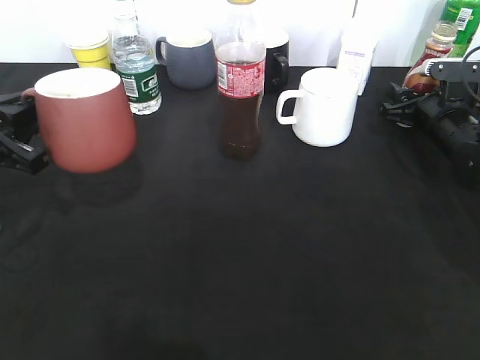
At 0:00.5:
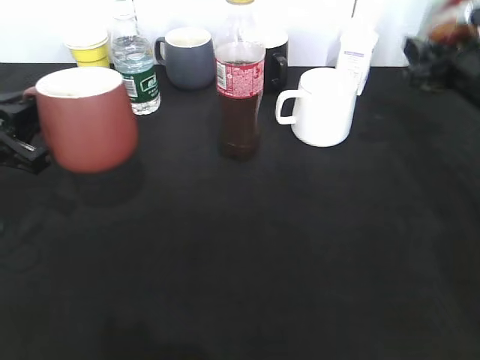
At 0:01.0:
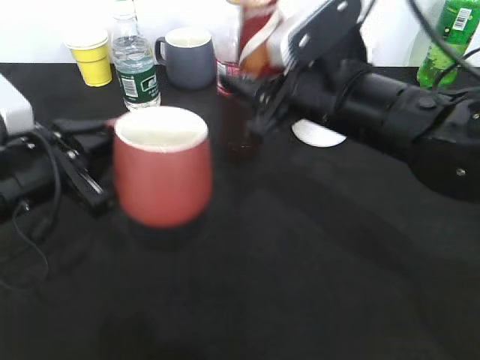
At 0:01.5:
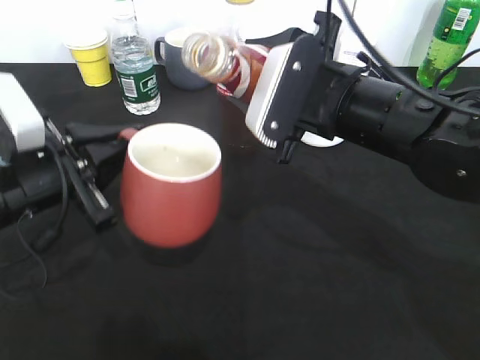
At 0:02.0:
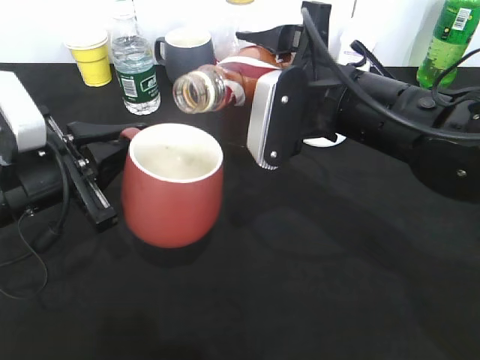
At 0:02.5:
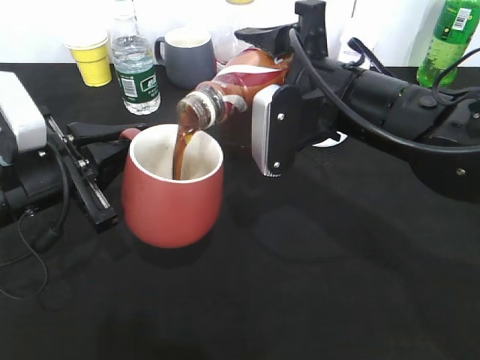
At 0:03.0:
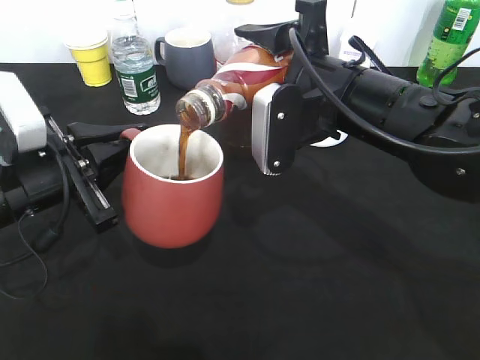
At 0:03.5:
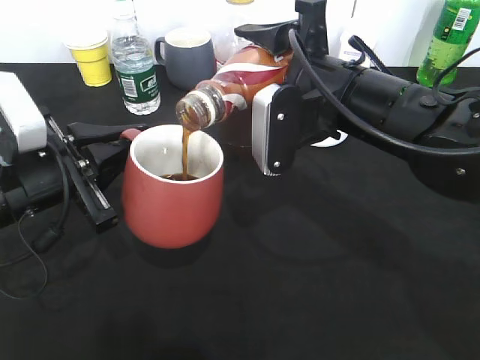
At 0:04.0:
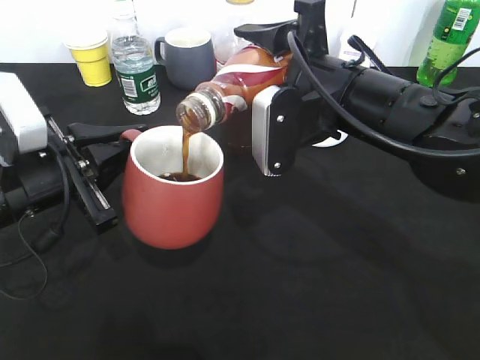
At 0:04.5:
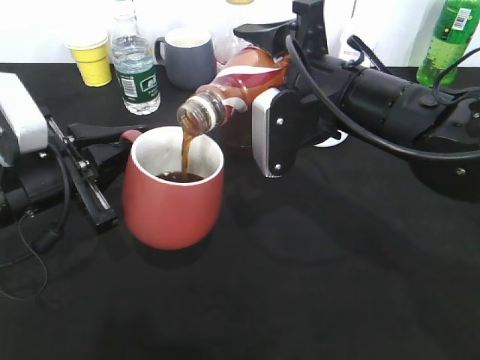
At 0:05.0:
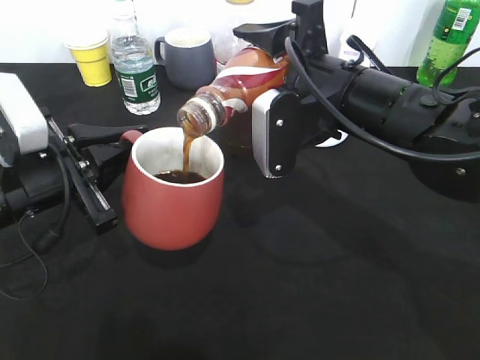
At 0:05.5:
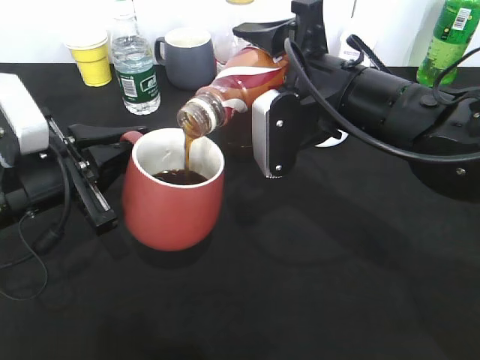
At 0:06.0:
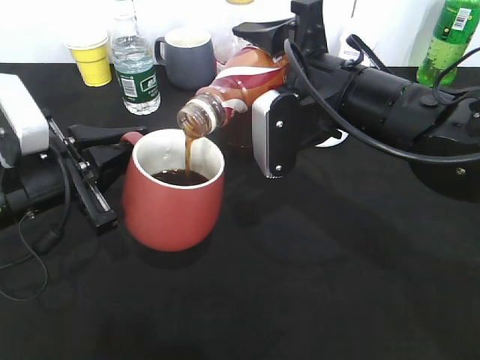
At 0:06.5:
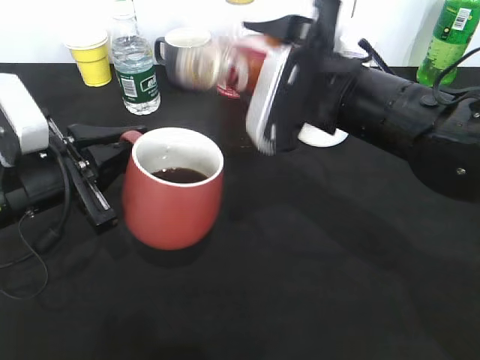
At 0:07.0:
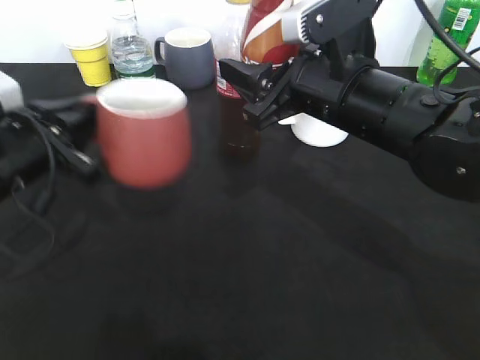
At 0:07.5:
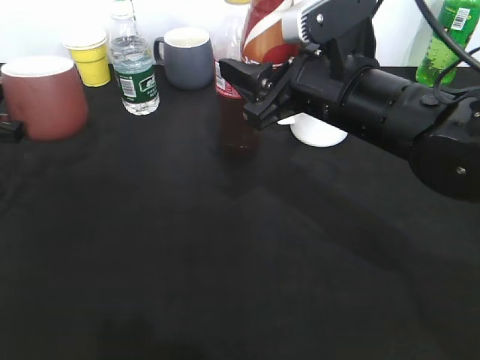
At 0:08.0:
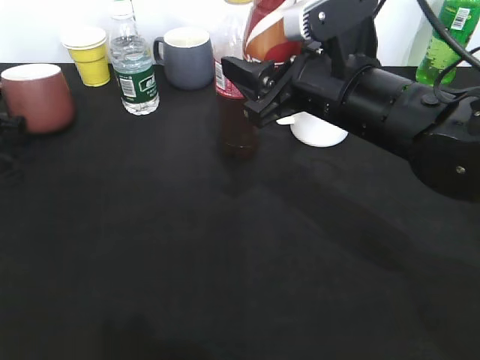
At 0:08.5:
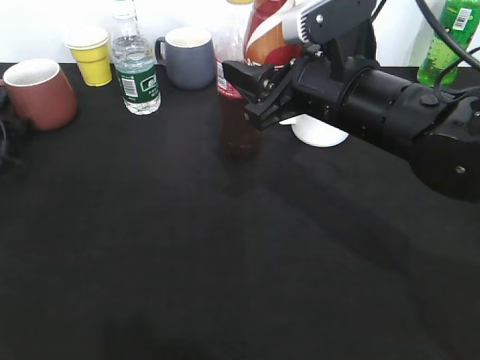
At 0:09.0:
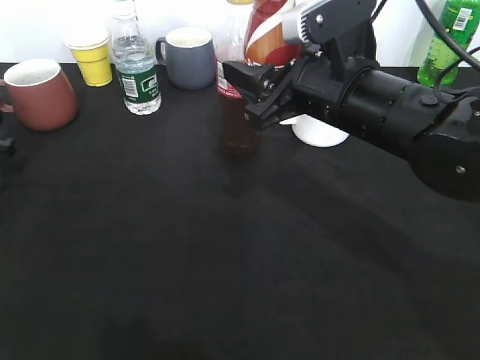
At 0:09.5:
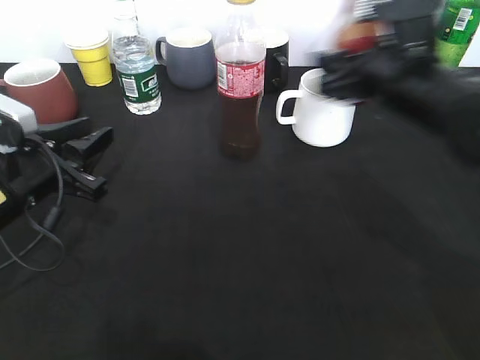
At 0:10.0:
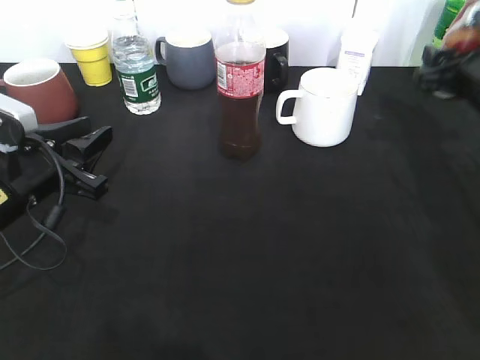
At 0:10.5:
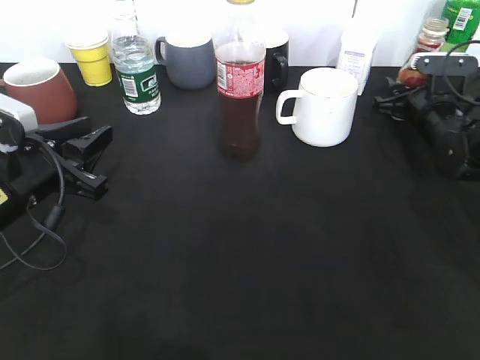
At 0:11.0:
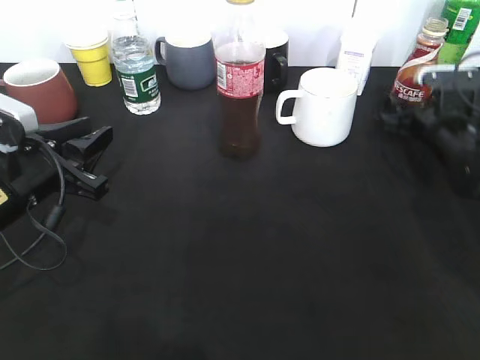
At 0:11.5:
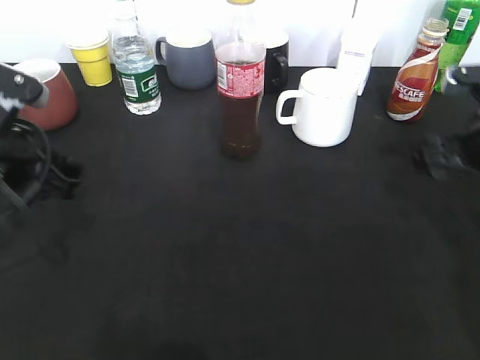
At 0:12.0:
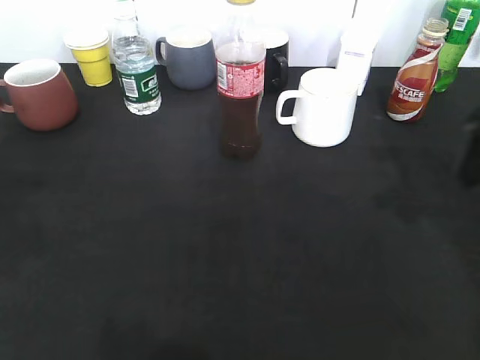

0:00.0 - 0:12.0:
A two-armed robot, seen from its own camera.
Step, 0:00.5 - 0:06.5: Pour the coffee from bottle to cup with right gripper.
Step, 0:07.0 - 0:08.5: Place the red cup on the table with left gripper.
Step, 0:09.0 - 0:10.5: Place the coffee bottle on the table with right gripper.
0:00.0 - 0:02.0: The left gripper heads to the right, covering approximately 10 cm, while the right gripper shifts about 25 cm to the left, backward and upward.
0:02.0 - 0:04.0: The grippers move only a little.
0:04.0 - 0:06.0: Both grippers stay about where they are.
0:06.0 - 0:08.0: The left gripper travels to the left and forward by roughly 25 cm.
0:08.0 - 0:10.0: The right gripper is displaced to the right and forward by approximately 20 cm; the left gripper heads to the right and backward, covering approximately 20 cm, and opens.
0:10.0 - 0:12.0: Both grippers travel together upward and backward, some 15 cm. The left gripper opens its fingers.

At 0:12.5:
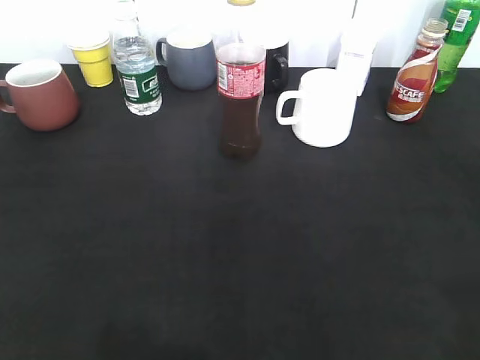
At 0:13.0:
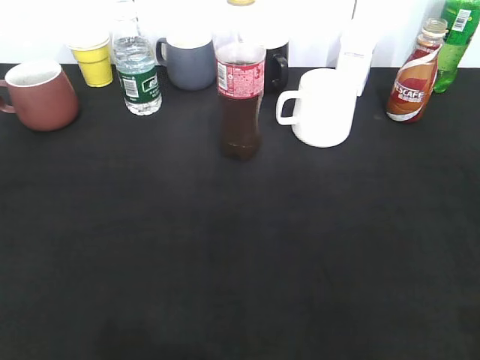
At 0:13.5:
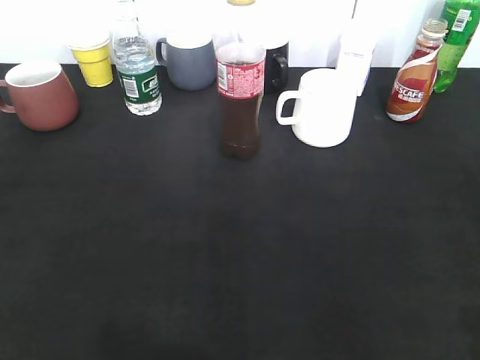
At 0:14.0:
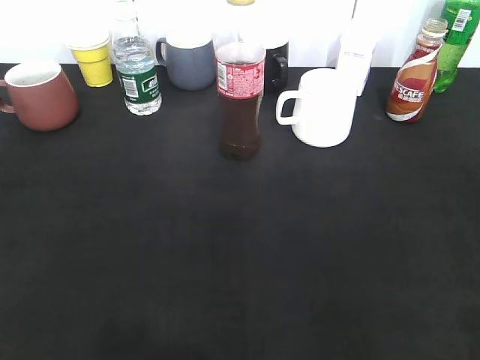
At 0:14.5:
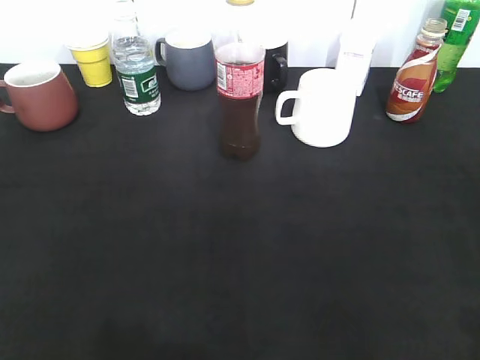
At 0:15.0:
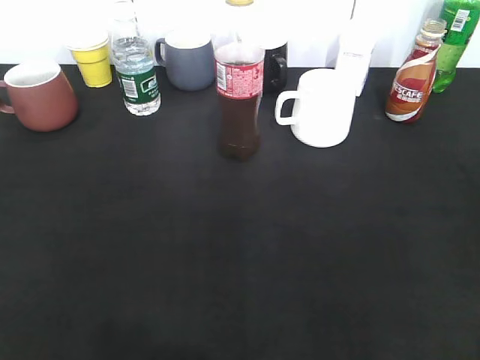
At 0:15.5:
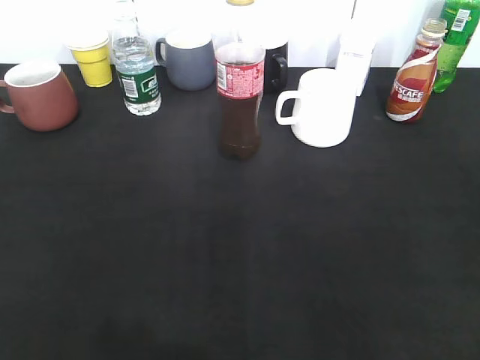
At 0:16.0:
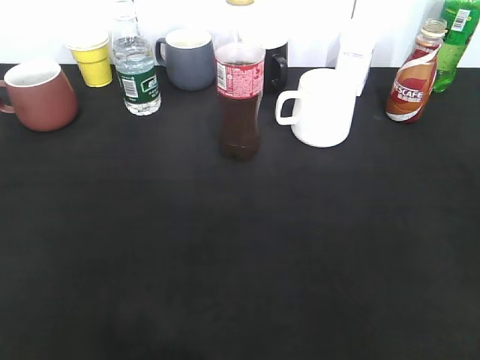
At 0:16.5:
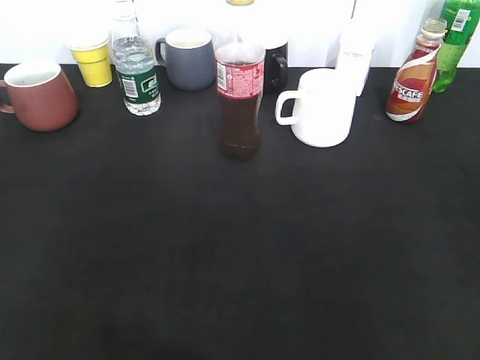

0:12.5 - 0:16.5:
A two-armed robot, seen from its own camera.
0:12.5 - 0:14.5: The left gripper goes about 5 cm downward, and closes up.

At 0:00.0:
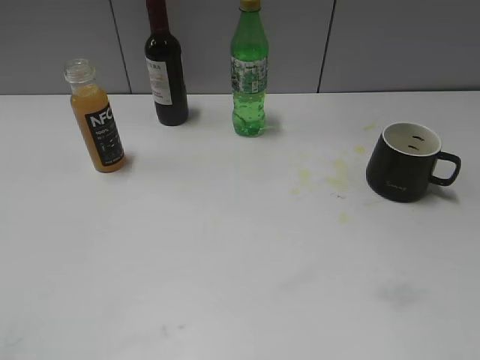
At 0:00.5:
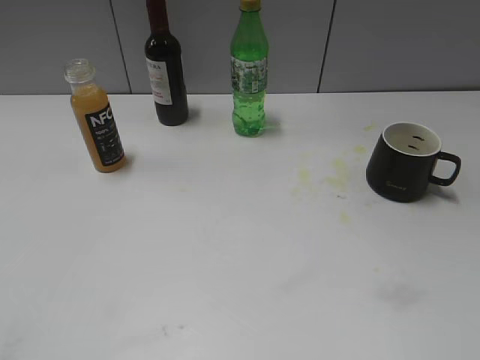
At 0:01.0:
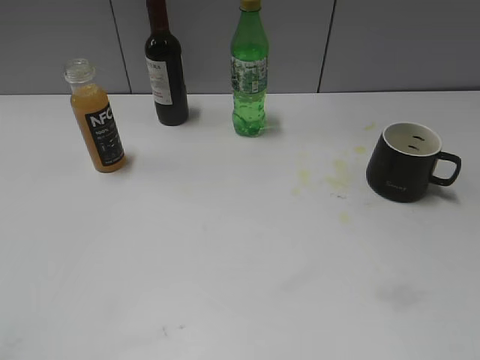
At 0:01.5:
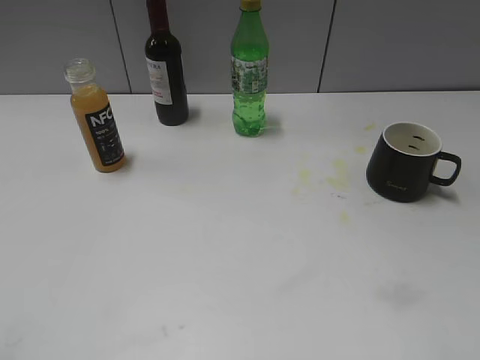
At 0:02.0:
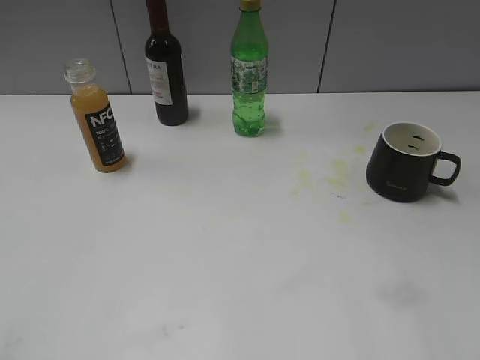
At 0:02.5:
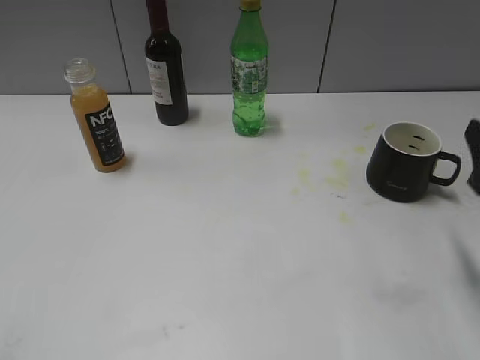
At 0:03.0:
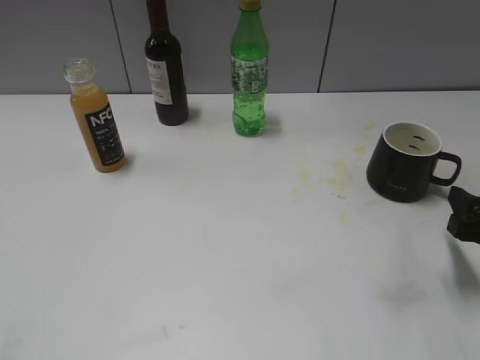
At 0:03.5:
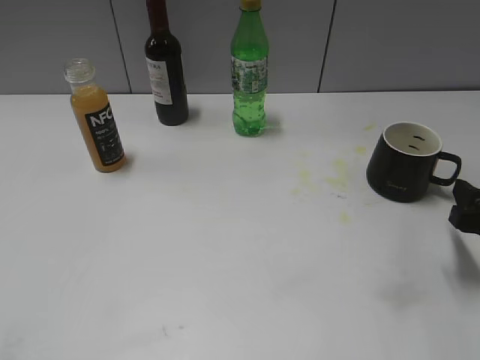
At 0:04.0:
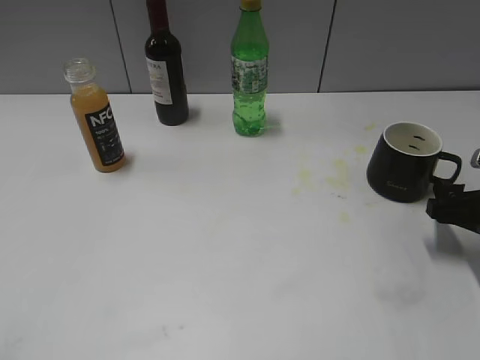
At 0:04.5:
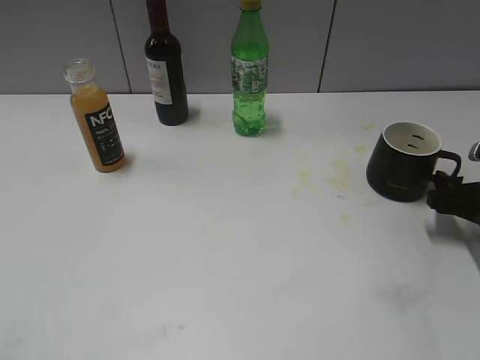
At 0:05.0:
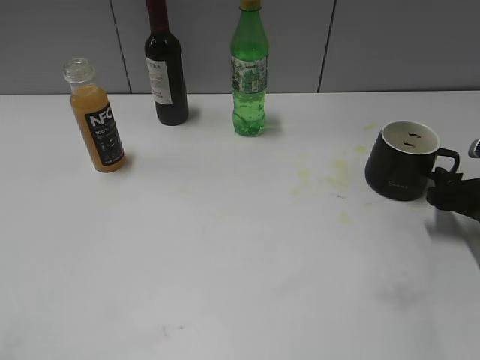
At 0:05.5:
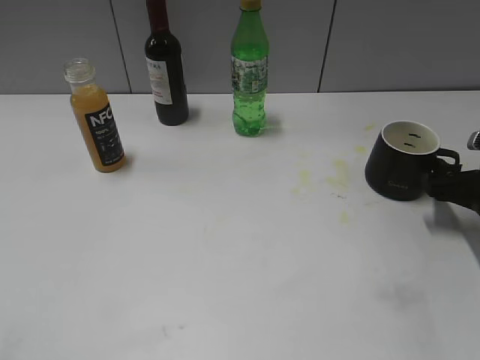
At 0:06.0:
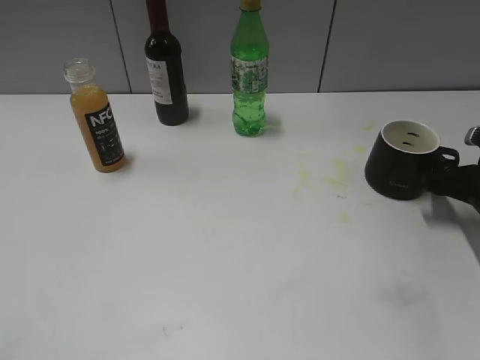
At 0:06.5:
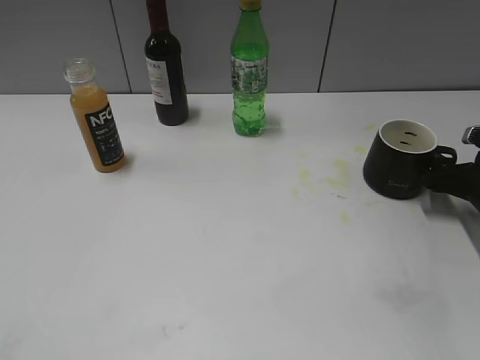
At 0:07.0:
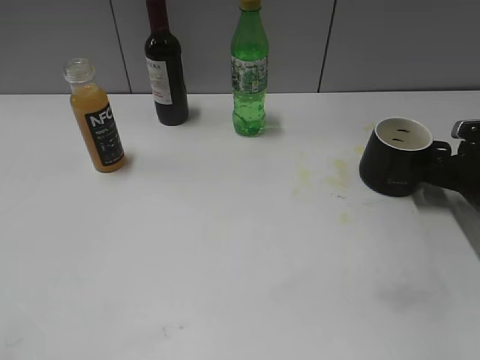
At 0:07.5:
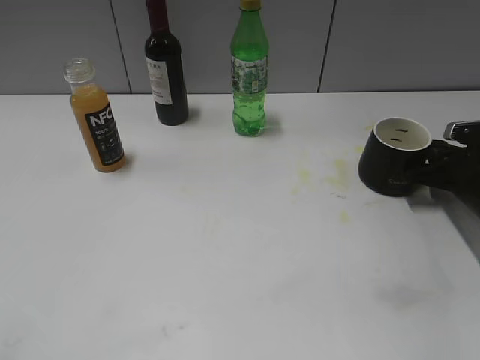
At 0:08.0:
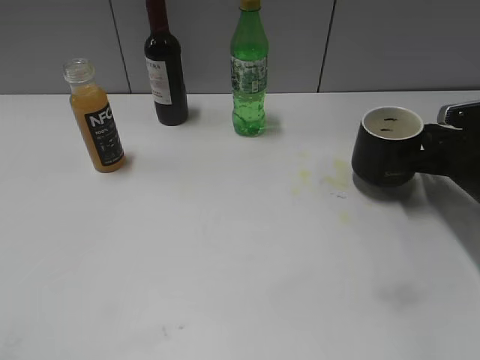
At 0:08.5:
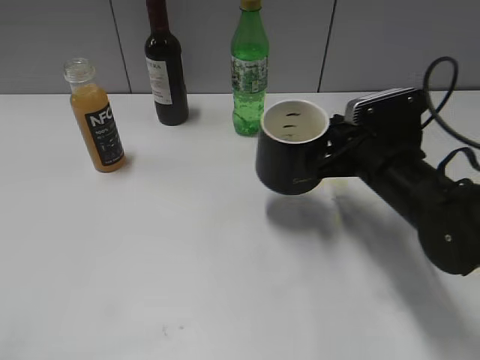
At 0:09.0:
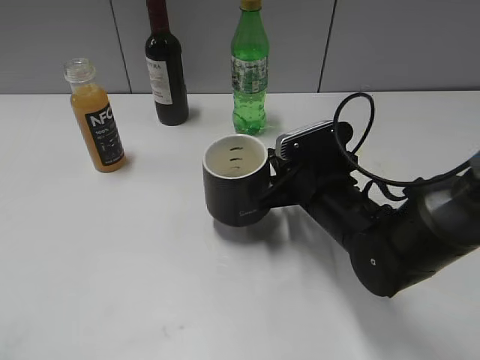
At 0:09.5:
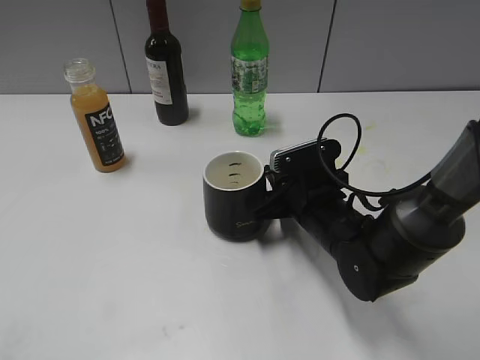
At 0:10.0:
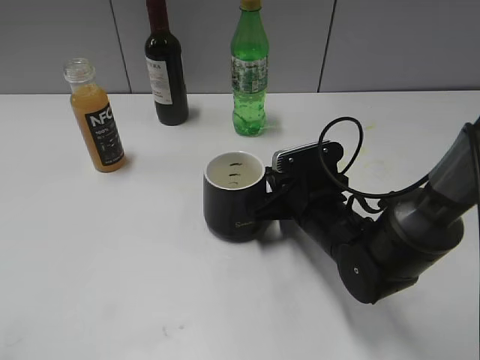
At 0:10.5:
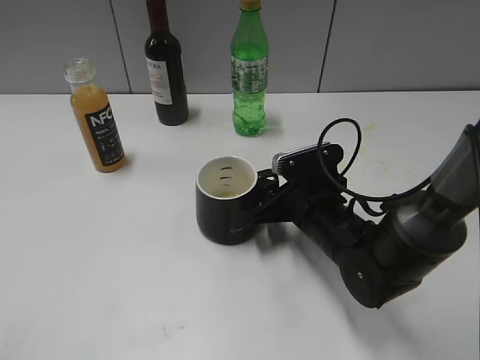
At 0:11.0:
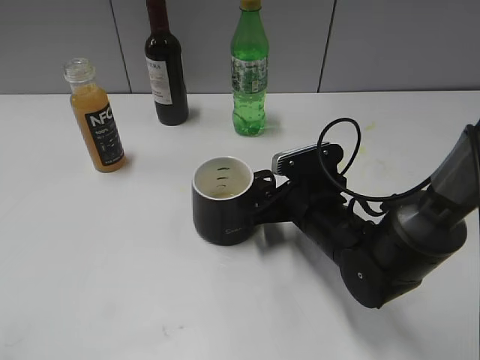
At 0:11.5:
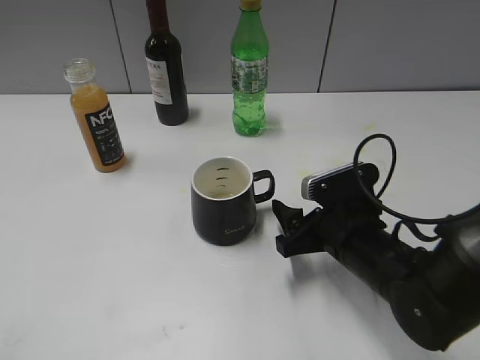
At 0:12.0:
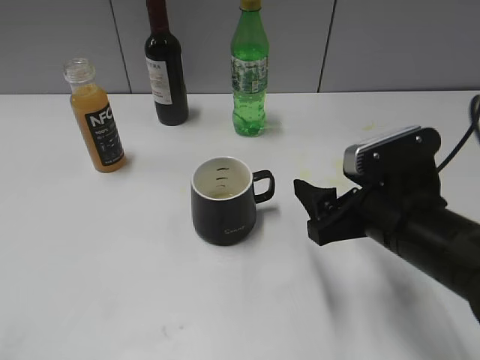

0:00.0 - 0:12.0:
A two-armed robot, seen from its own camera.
Step, 0:02.5 - 0:07.5: Grasp the black cup with right gripper.
Step, 0:08.0 - 0:11.0: Place the black cup in the center of view with right gripper.
0:02.0 - 0:04.0: The right gripper moves downward and forward, roughly 20 cm.
0:04.0 - 0:06.0: The right gripper moves forward, approximately 5 cm.
0:06.0 - 0:08.0: The right gripper closes its fingers.
0:08.0 - 0:10.0: The right gripper travels to the left by some 20 cm.
0:10.0 - 0:12.0: The right gripper is displaced upward, backward and to the right by roughly 15 cm, and opens.
